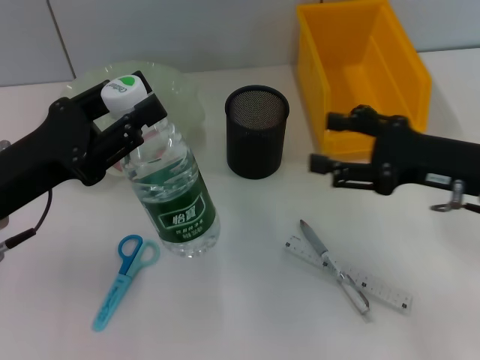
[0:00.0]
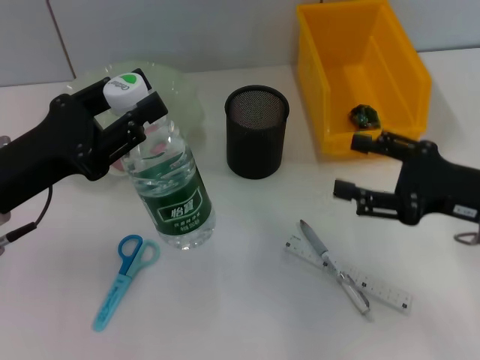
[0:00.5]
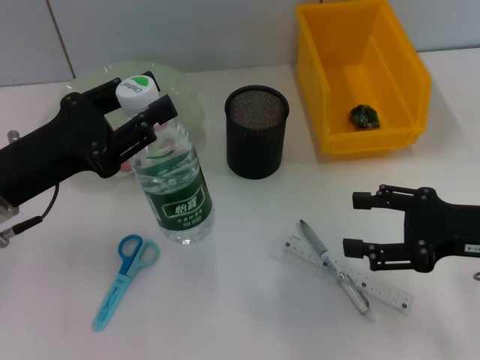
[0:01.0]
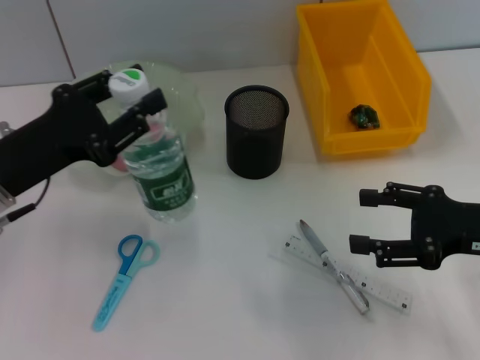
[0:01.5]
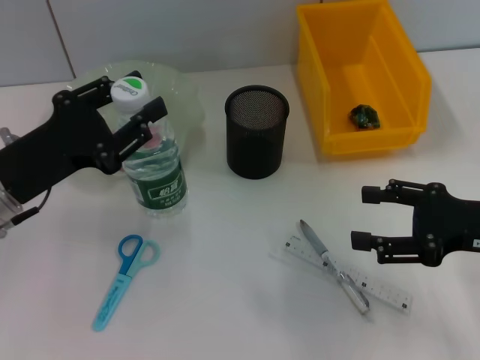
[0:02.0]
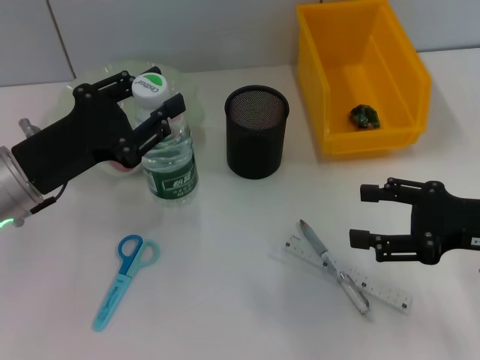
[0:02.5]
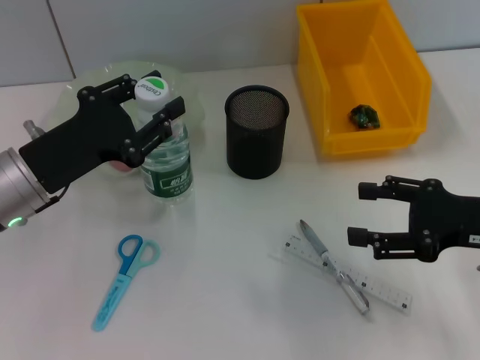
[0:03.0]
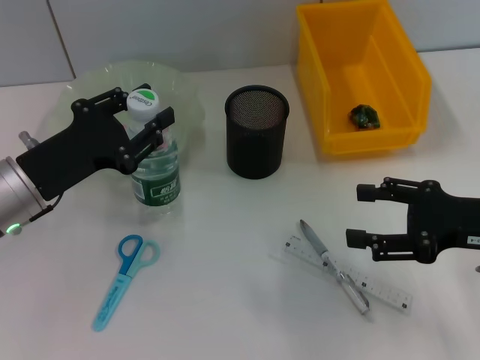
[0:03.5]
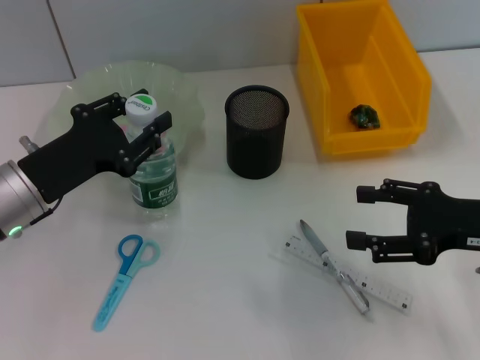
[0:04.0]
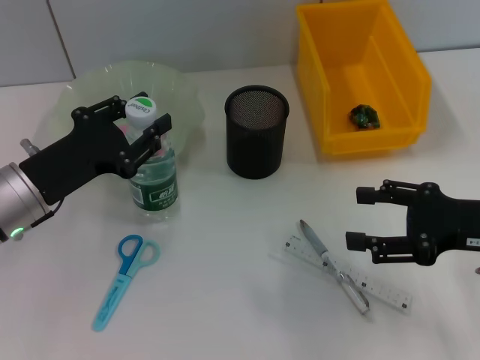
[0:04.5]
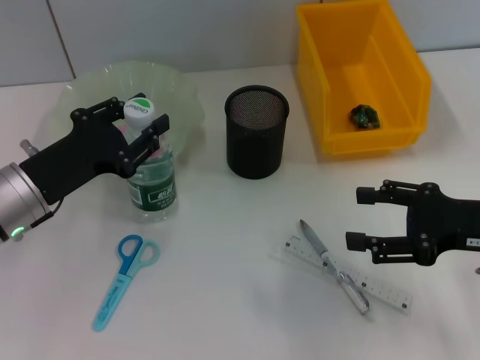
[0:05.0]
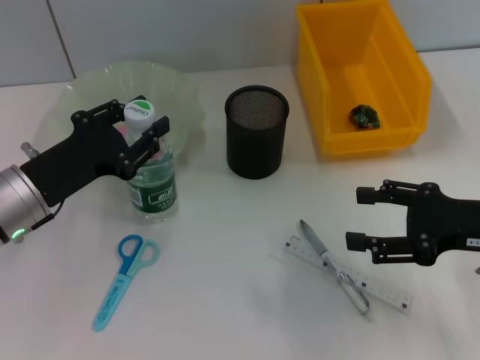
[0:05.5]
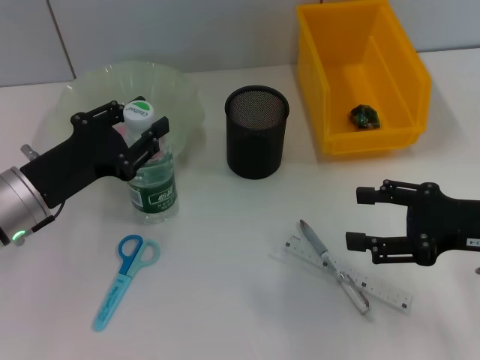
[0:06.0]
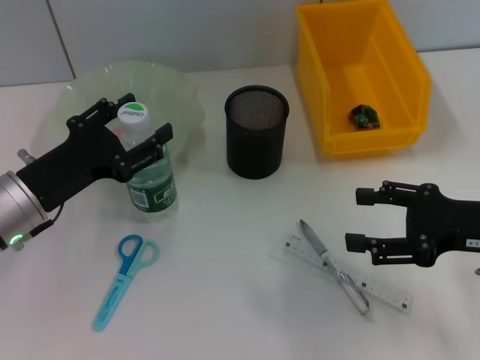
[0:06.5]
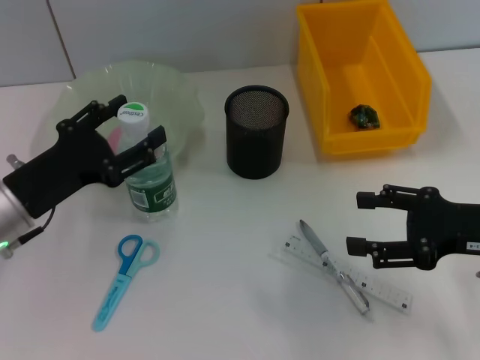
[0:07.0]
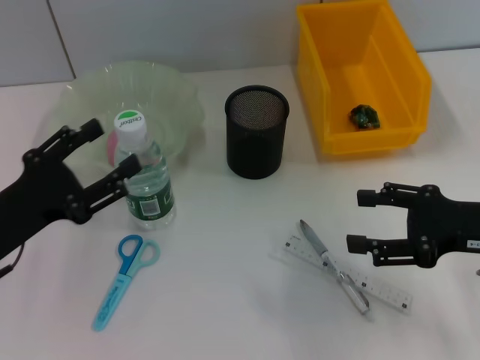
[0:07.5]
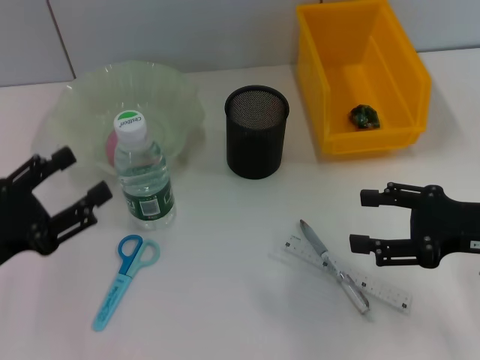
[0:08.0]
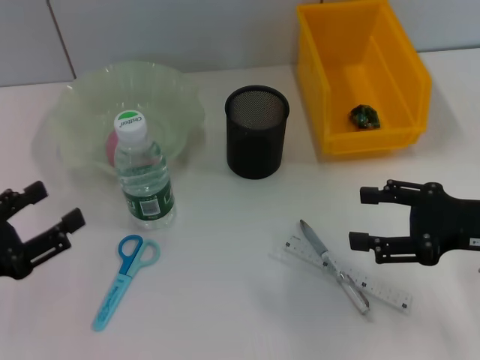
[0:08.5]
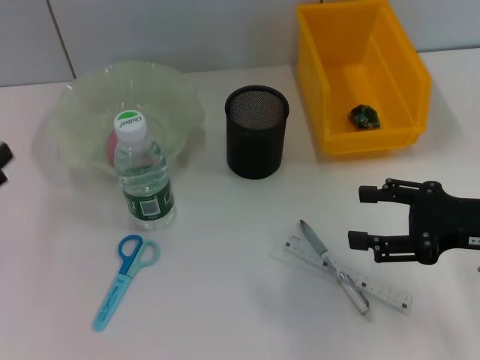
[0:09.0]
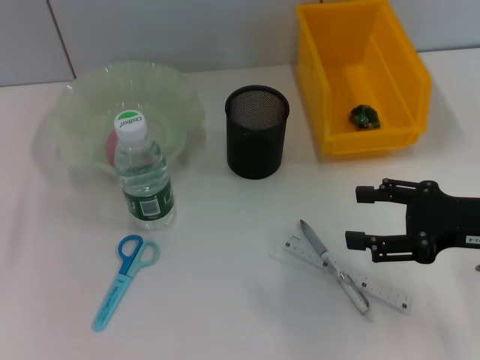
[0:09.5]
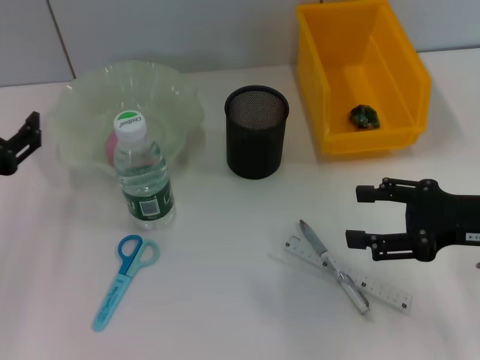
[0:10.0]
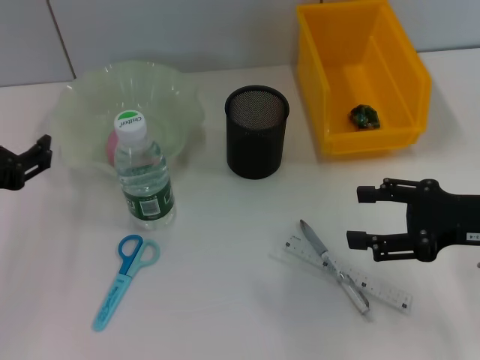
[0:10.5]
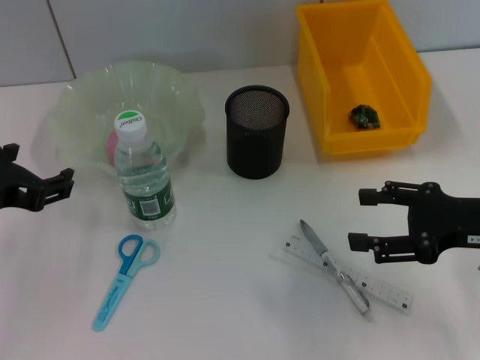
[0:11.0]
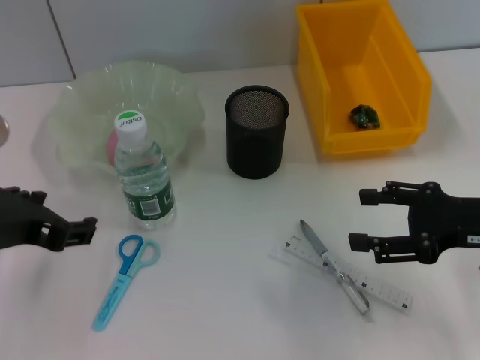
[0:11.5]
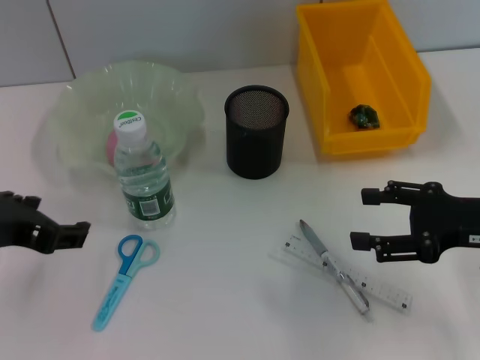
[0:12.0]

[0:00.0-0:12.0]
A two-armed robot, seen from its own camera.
Step, 0:00.0 to 0:06.5: Place the water bottle on the table with the left hand.
0:00.0 to 0:02.0: The right gripper moves some 5 cm.
0:02.0 to 0:04.0: The grippers make only small movements.
0:04.0 to 0:06.0: Both grippers stay put.
0:06.0 to 0:08.0: The left gripper heads backward and to the left, covering roughly 10 cm, and opens.
0:08.0 to 0:10.0: The left gripper goes approximately 5 cm upward.
0:10.0 to 0:12.0: The left gripper moves some 5 cm.

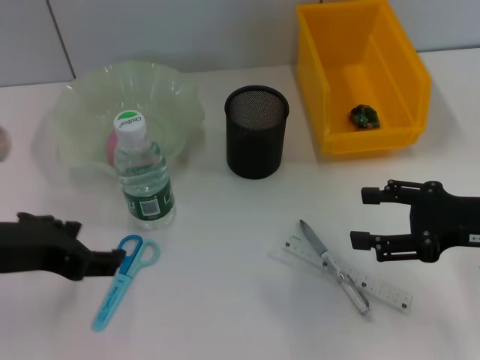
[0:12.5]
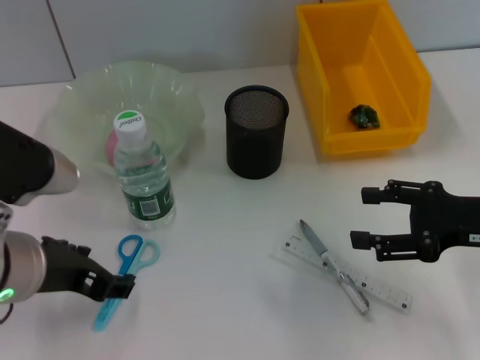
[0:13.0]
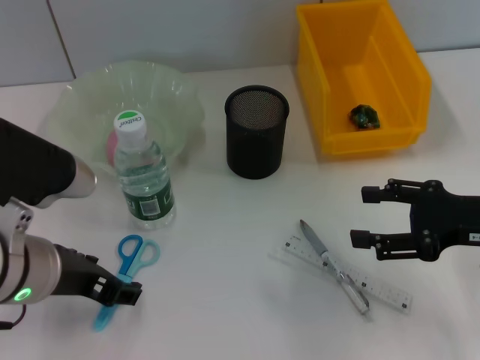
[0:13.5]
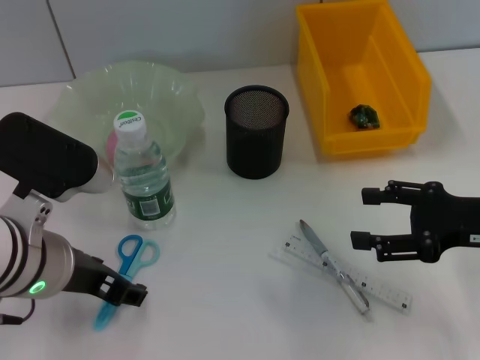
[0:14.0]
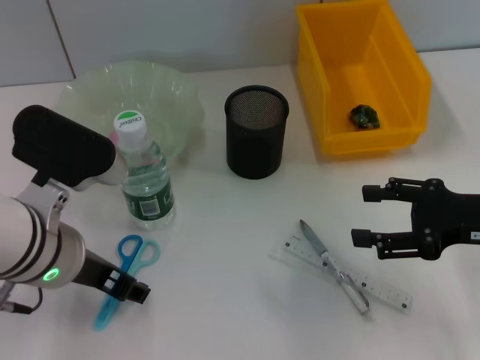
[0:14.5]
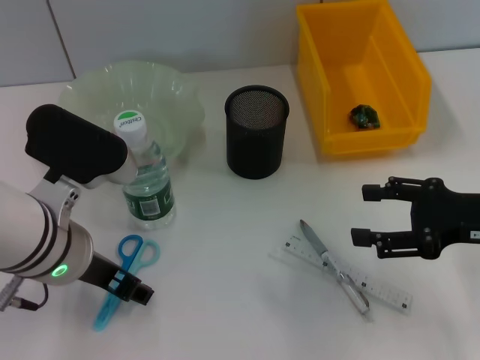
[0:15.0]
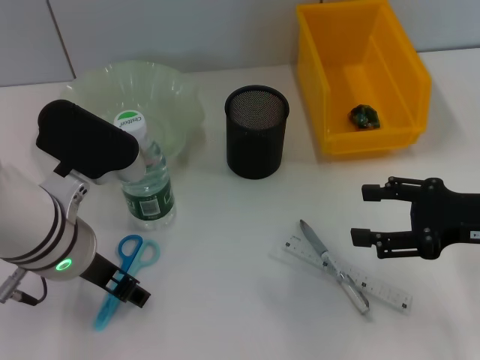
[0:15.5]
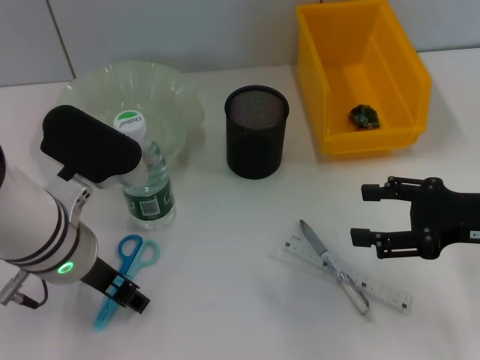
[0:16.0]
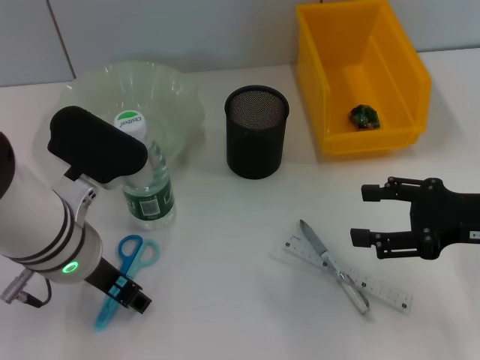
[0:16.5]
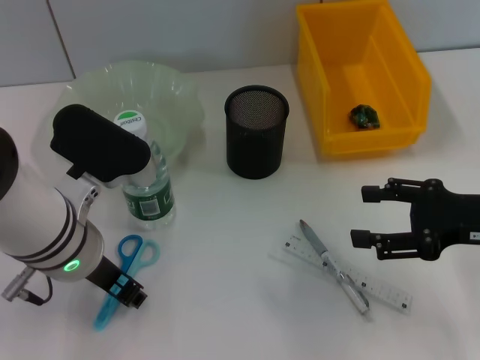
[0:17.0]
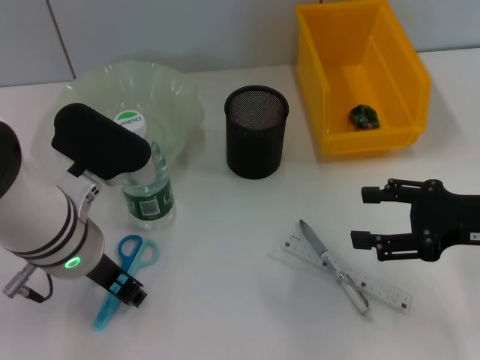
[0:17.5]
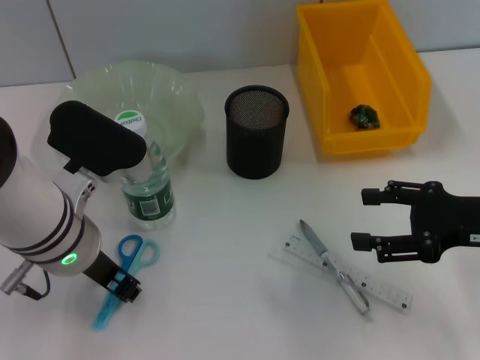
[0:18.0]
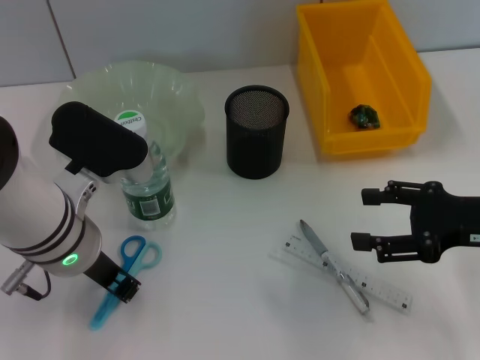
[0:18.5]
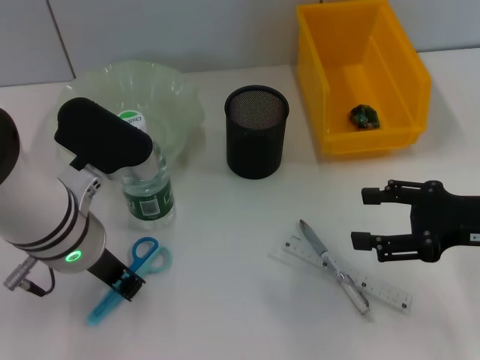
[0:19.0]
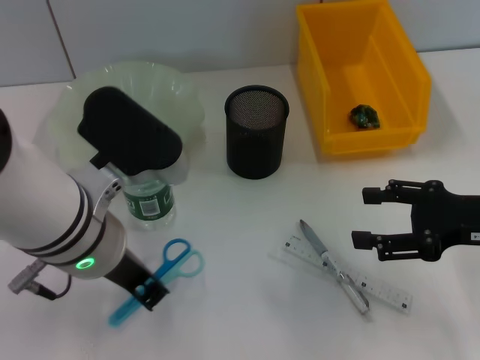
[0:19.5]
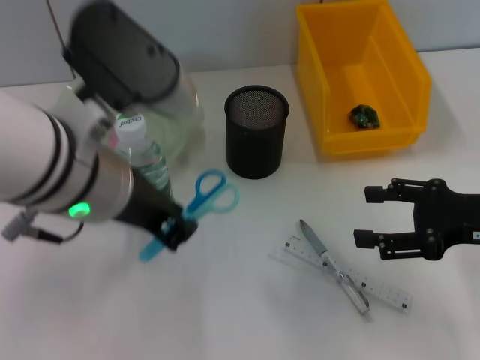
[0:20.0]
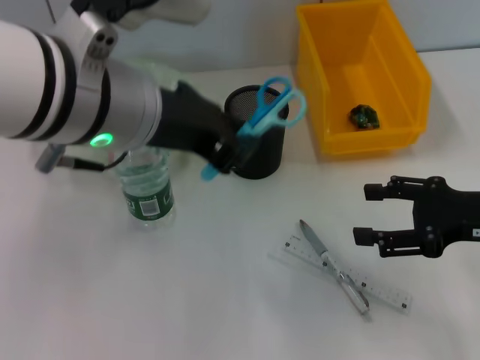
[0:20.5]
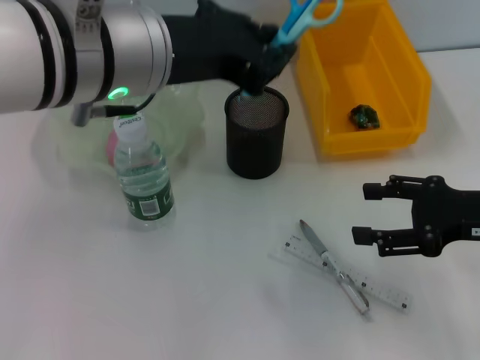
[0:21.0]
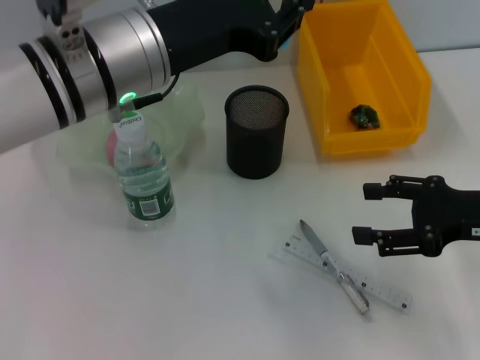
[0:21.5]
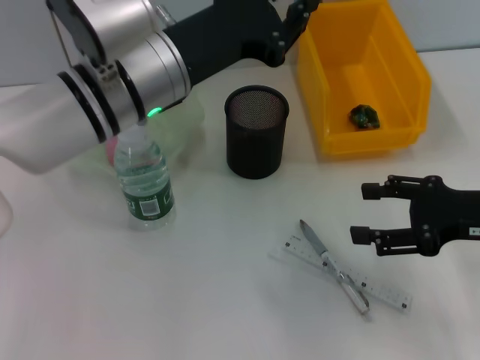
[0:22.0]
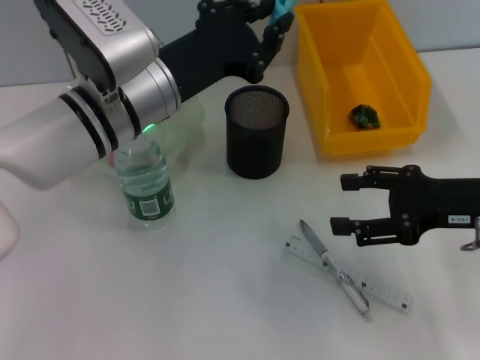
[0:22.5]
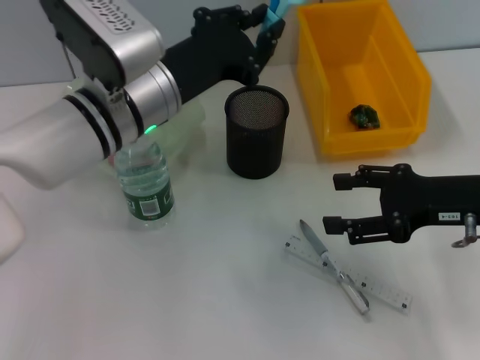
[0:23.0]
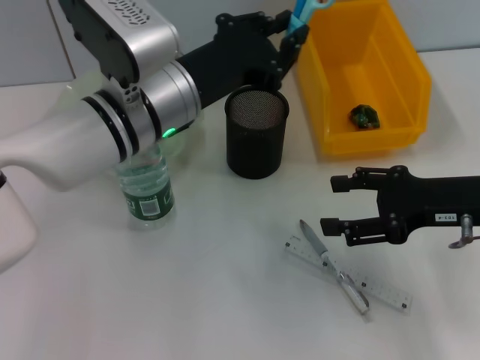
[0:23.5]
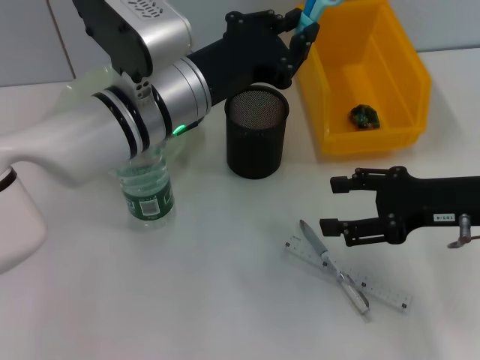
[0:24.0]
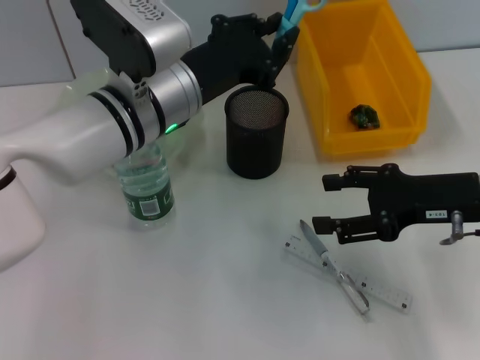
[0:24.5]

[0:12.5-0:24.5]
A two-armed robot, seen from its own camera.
Step, 0:12.5 to 0:18.5: Grab the blue scissors with the left hand.
0:12.5 to 0:14.5: The left gripper travels to the right by approximately 5 cm.
0:14.5 to 0:16.5: The grippers stay close to where they were, moving slightly.
0:16.5 to 0:18.5: The left gripper closes up.
0:18.5 to 0:20.5: The left gripper shifts approximately 15 cm upward.
0:20.5 to 0:22.5: The left gripper is displaced downward and forward by roughly 15 cm.
0:22.5 to 0:24.5: The grippers stay close to where they were, moving slightly.

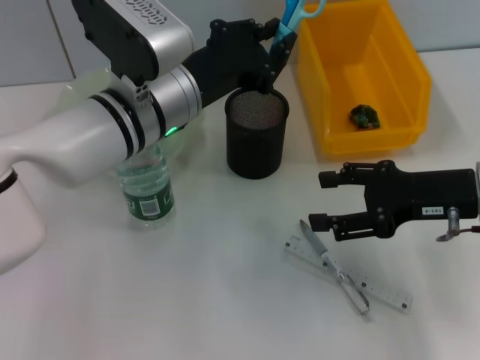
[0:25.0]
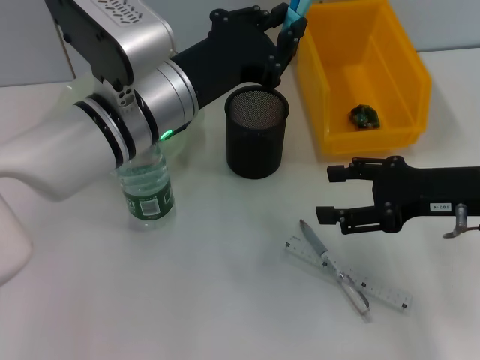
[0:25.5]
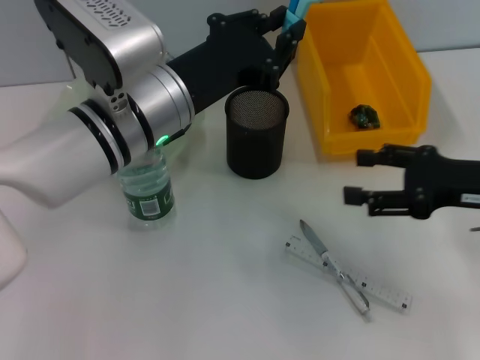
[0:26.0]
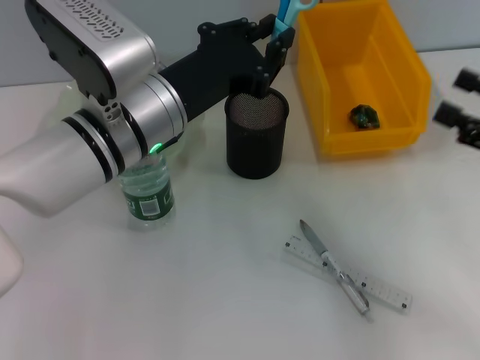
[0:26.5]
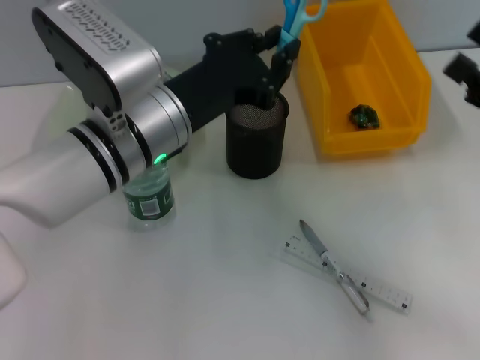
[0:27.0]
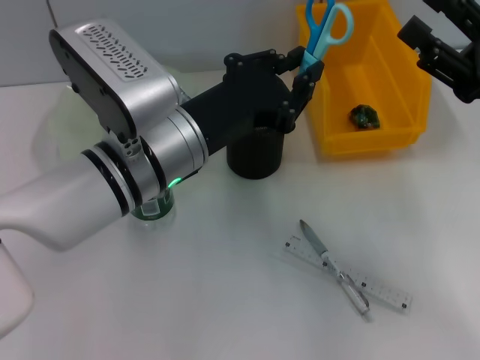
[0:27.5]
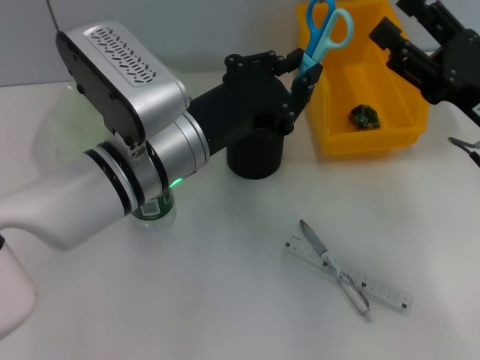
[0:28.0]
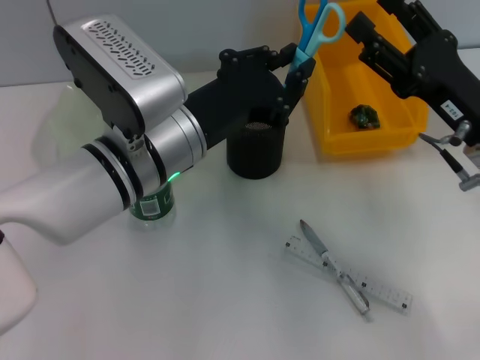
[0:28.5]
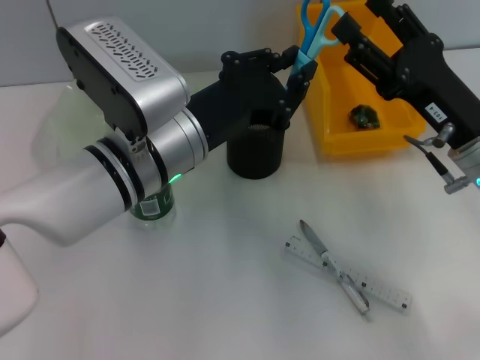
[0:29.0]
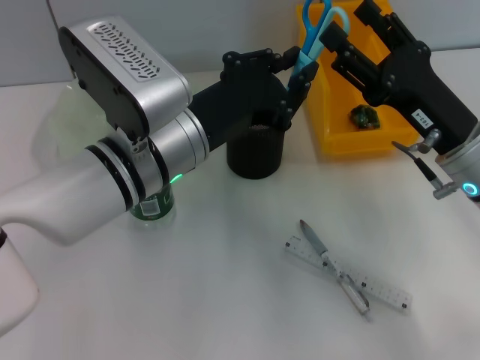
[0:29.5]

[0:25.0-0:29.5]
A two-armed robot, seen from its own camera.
0:25.0 to 0:27.0: The right gripper is displaced to the right by some 5 cm.
0:27.0 to 0:29.5: The right gripper travels to the left by about 10 cm.
